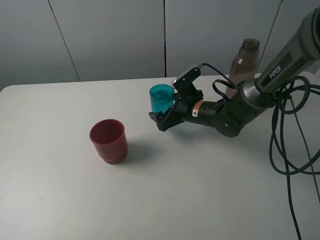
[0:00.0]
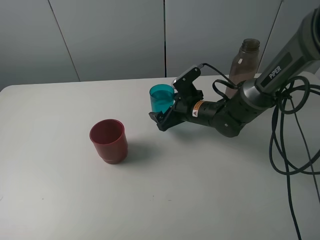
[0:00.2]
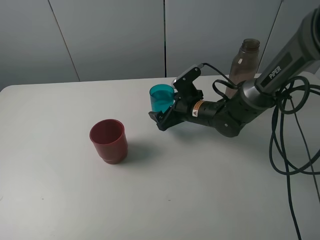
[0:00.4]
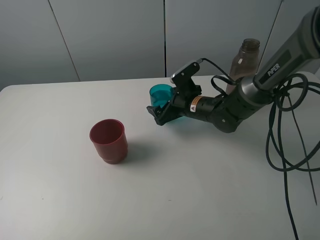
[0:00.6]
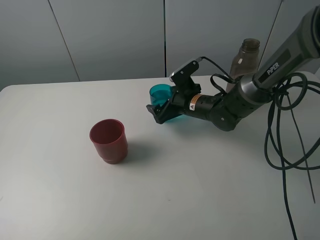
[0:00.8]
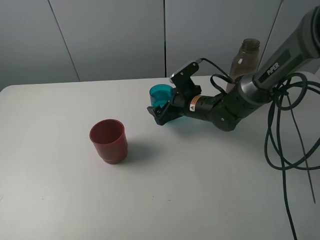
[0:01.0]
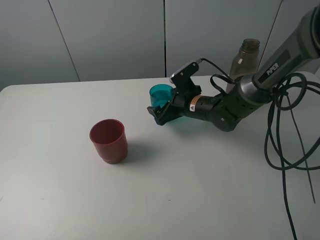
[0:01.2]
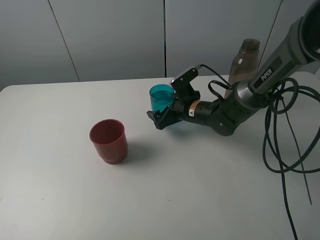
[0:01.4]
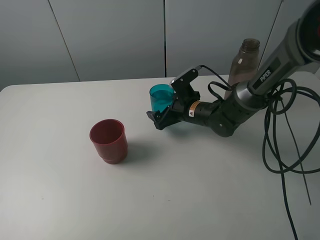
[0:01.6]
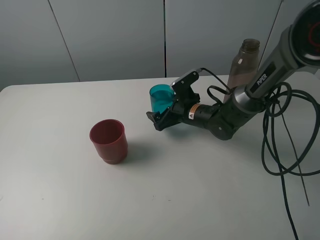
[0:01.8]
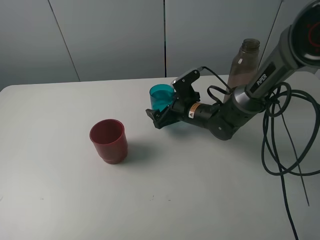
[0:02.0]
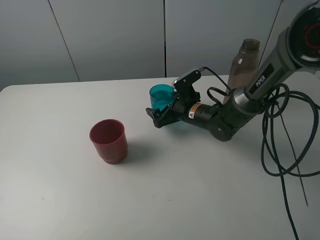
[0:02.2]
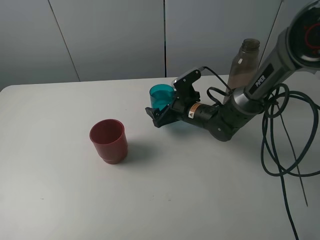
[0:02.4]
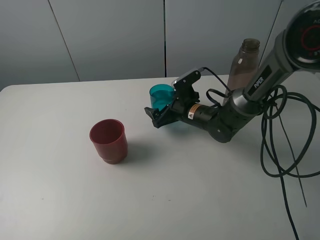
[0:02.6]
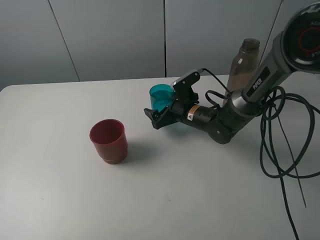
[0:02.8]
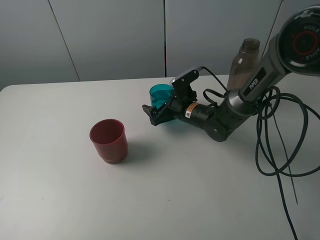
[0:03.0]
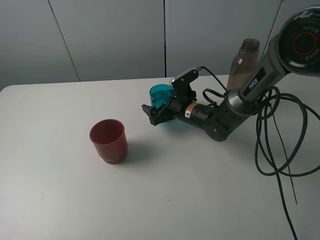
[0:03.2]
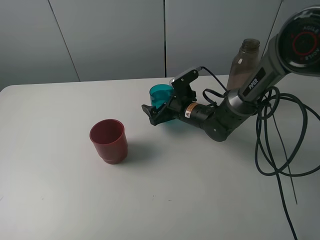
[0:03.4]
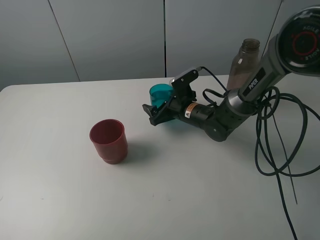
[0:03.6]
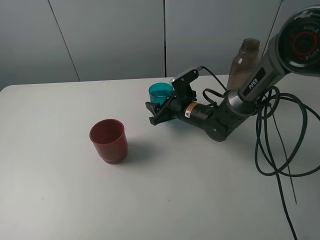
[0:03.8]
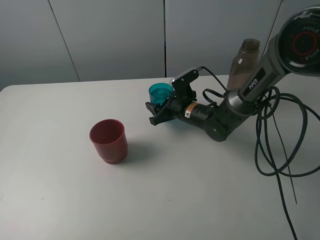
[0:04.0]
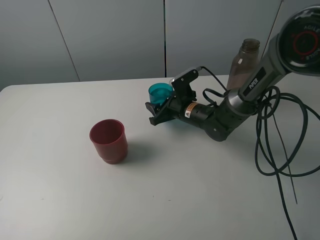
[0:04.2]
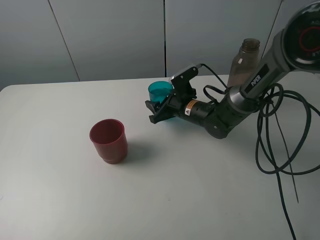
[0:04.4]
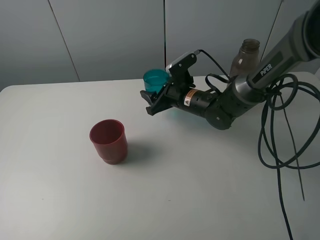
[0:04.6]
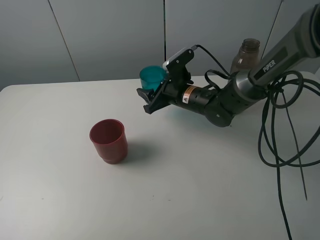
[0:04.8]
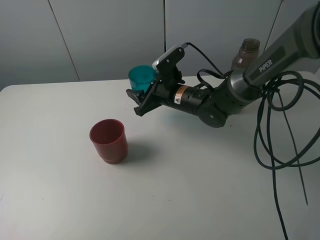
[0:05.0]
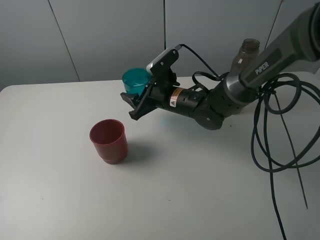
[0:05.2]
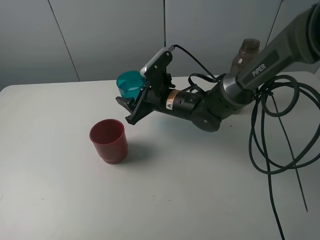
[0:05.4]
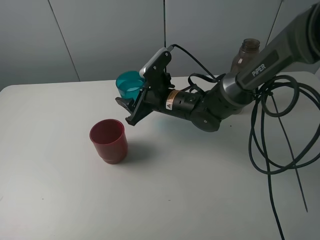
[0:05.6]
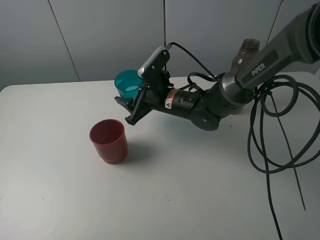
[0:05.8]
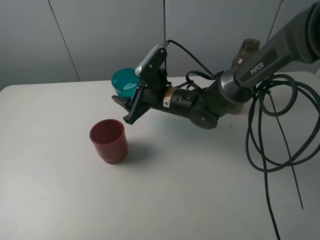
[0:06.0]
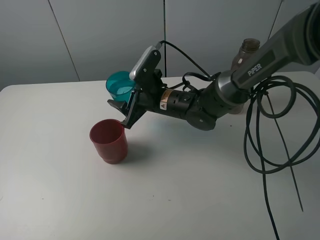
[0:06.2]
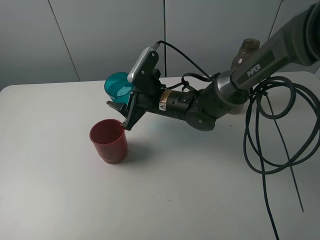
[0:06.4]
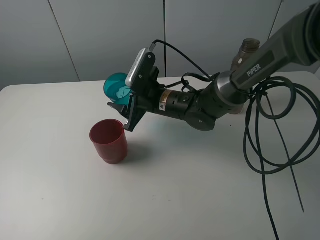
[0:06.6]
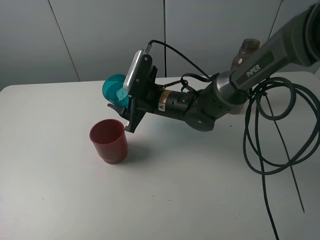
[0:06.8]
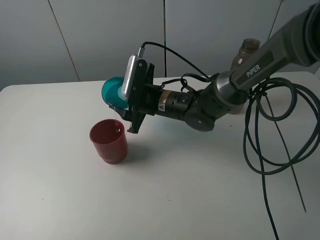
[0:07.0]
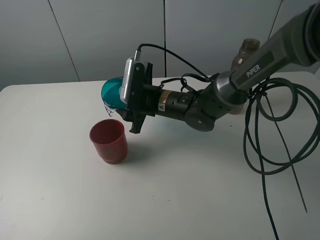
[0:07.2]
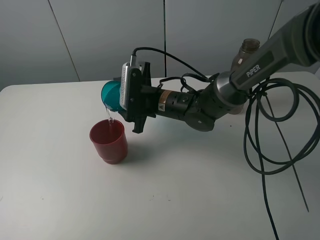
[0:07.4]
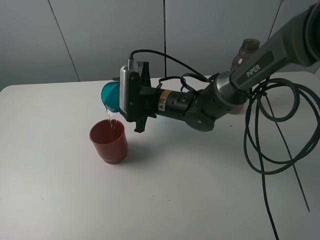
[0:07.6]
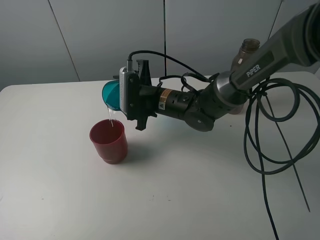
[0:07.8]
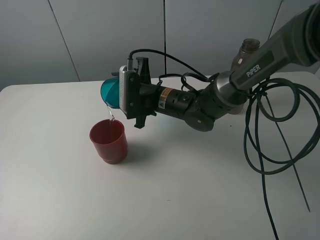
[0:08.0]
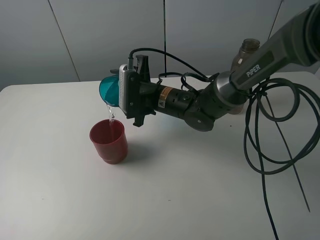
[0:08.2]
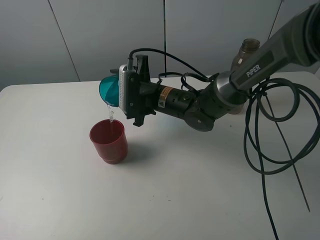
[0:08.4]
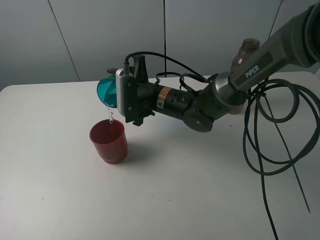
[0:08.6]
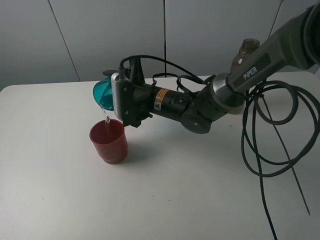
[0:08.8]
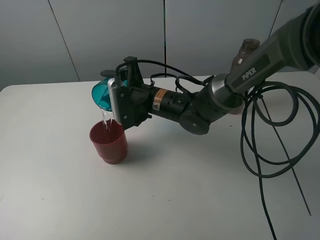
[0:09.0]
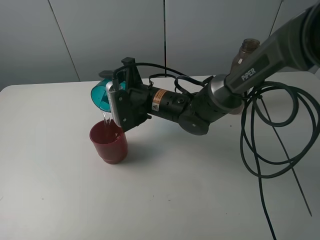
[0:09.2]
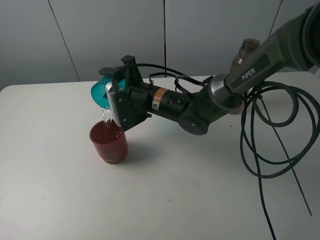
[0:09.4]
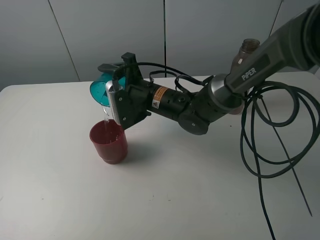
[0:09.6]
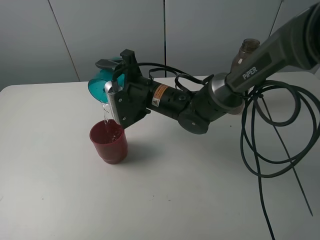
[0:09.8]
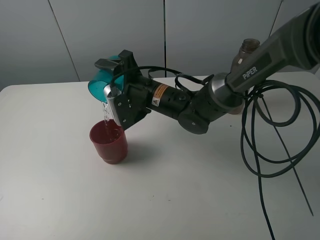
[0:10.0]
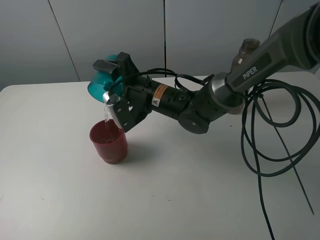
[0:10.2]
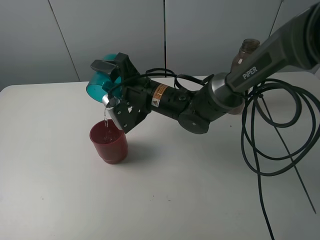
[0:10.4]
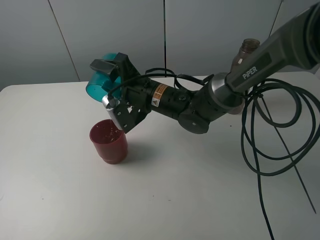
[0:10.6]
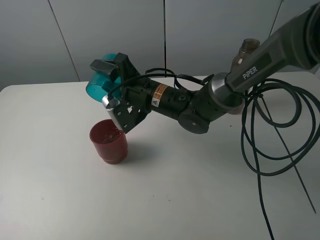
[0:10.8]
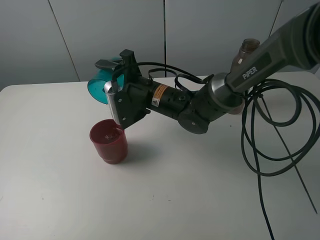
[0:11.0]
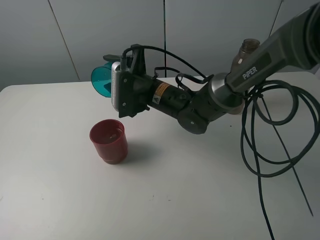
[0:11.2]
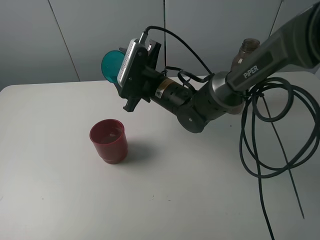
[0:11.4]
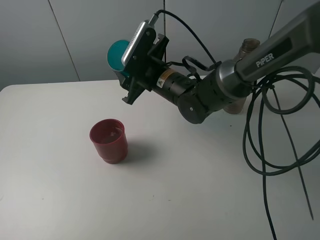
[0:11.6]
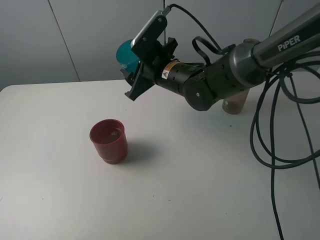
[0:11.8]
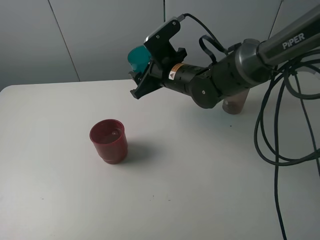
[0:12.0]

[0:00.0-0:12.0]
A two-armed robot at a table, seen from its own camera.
Task of the whole recording: pick up the bottle and pour water into the cup, then pick up the cup containing water and pour it into another cup.
Step, 0:00.0 to 0:04.0: Grasp the blue cup with the right gripper.
Step, 0:04.2 to 0:10.8: Pour water from blue cup to red cup with the right gripper.
0:00.0 to 0:03.0: There are only small adjustments of the grippers.
0:03.0 to 0:04.4: The right gripper closes.
0:04.4 to 0:06.0: The right gripper moves to the left and upward, some 10 cm.
0:10.4 to 0:12.0: The right gripper moves to the right, some 5 cm.

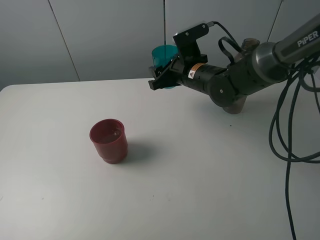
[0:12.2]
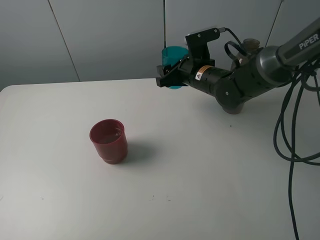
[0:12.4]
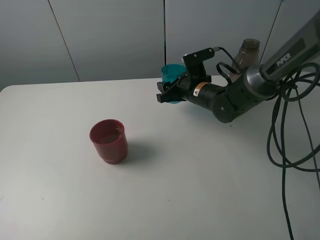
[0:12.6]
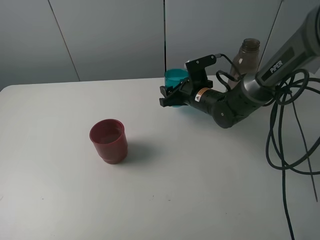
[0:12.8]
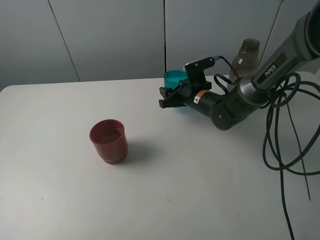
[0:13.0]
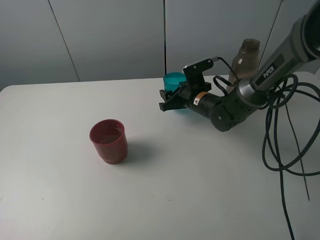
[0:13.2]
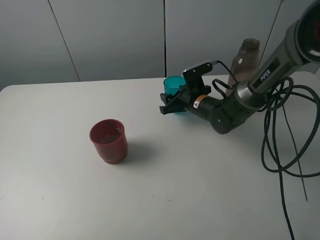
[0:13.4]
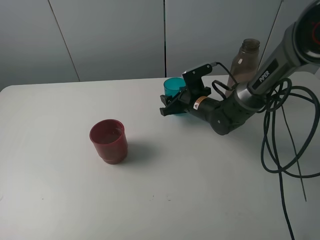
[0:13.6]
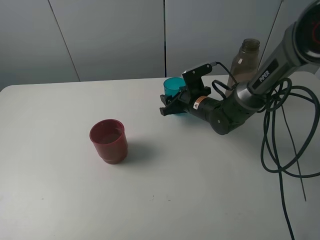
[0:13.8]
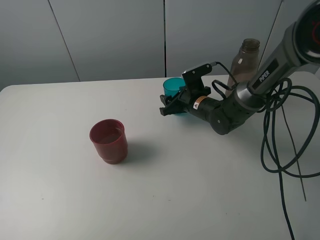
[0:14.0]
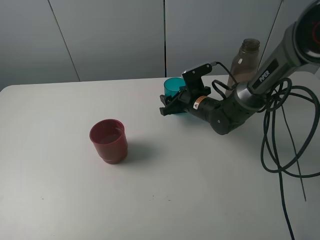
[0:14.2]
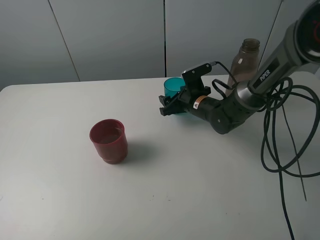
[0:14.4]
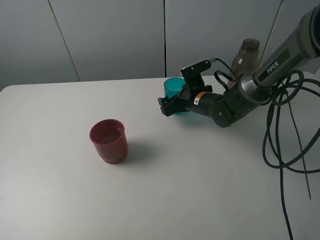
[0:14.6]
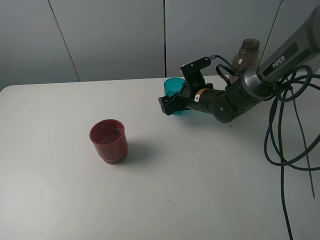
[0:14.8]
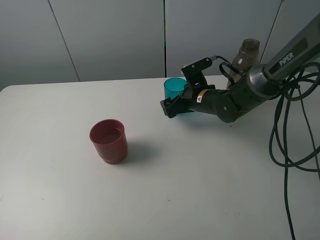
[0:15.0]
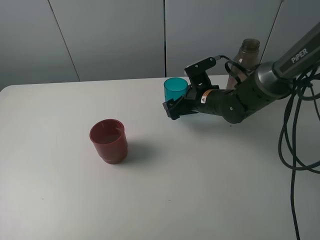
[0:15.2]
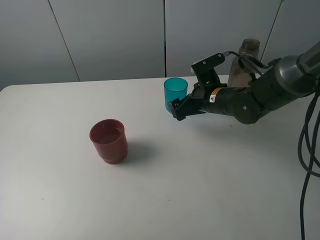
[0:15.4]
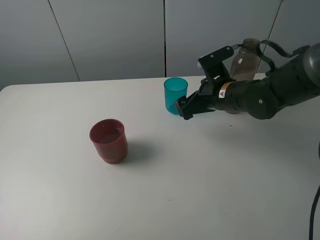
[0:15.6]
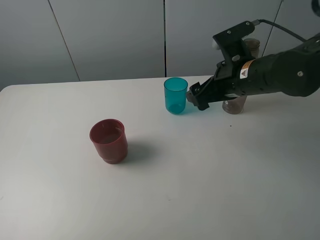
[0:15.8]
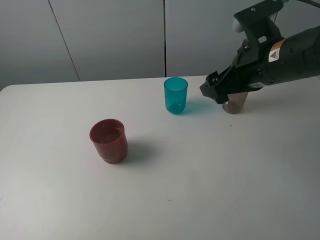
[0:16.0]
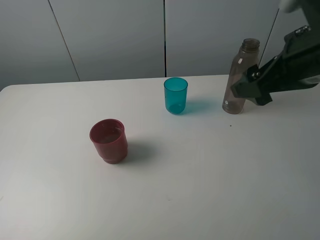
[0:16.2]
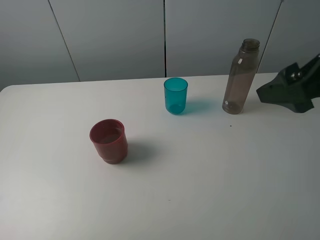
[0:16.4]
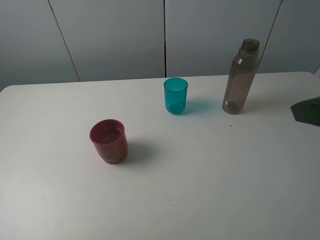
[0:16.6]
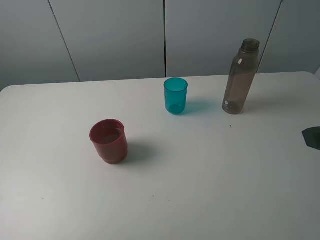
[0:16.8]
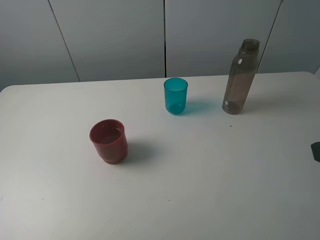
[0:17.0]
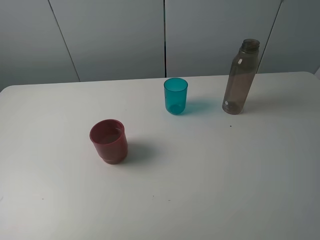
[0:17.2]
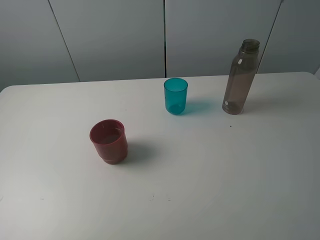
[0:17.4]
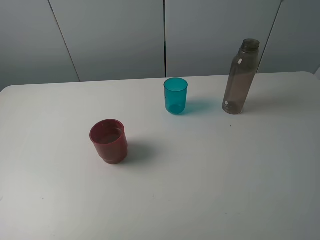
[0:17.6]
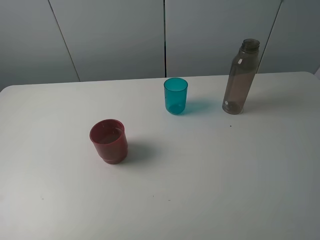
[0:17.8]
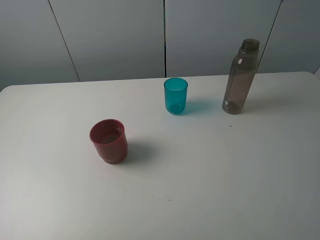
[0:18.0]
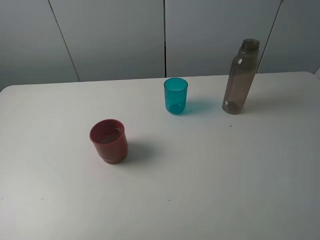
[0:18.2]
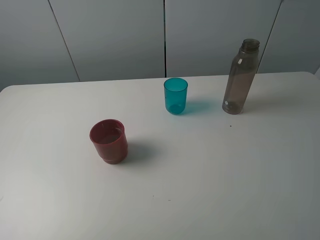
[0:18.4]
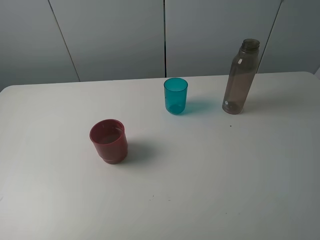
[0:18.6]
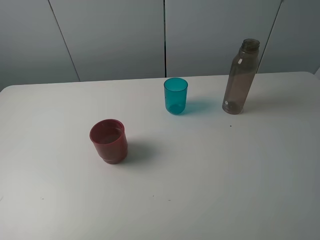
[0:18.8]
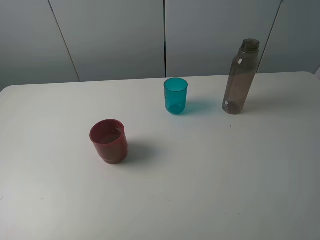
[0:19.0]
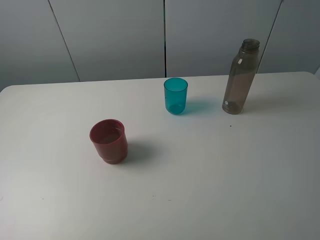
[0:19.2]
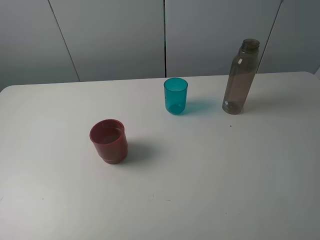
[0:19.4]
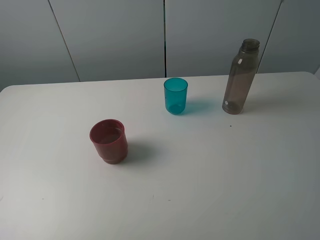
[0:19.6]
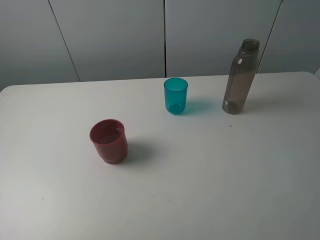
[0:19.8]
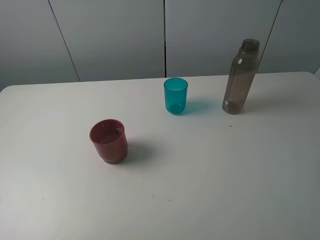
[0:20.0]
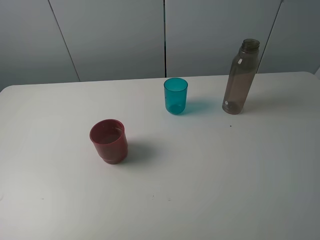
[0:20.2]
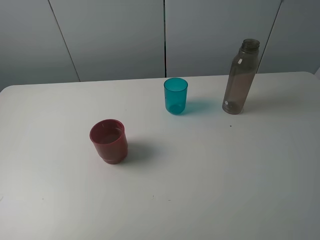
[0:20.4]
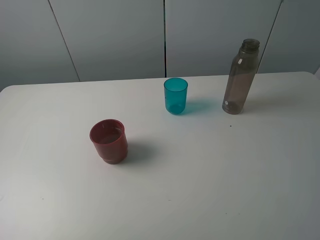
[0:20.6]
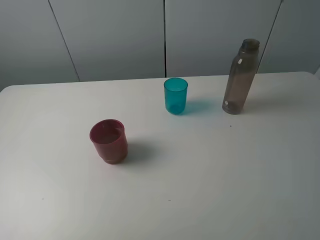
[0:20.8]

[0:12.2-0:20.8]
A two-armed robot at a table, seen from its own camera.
Task of the whole recording: pick up the bottle and pour water into the cup, then pick up the cup containing water and pour it into another cup.
Step, 0:12.2 to 0:15.0: Place the blue cup with the right gripper.
0:12.2 to 0:13.6: The right gripper heads downward, covering approximately 10 cm.
0:13.6 to 0:15.0: The right gripper opens its fingers.
0:15.0 to 0:16.6: The right gripper moves backward, upward and to the right, approximately 40 cm.
0:16.6 to 0:18.0: The right gripper goes about 10 cm backward.
0:19.4 to 0:20.8: Neither gripper changes place.
